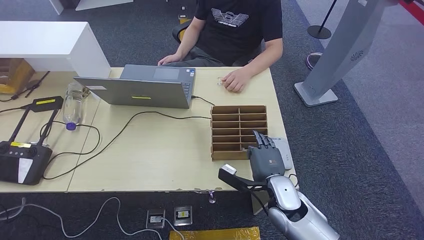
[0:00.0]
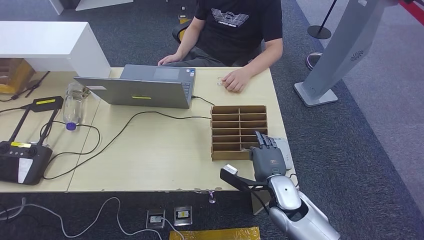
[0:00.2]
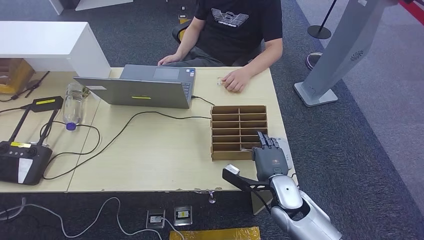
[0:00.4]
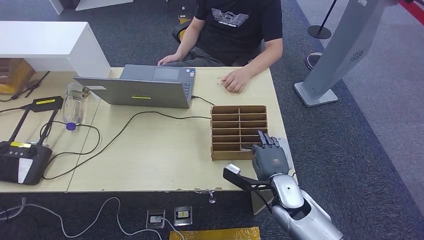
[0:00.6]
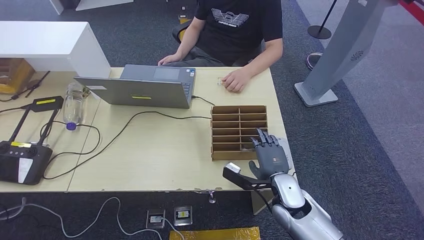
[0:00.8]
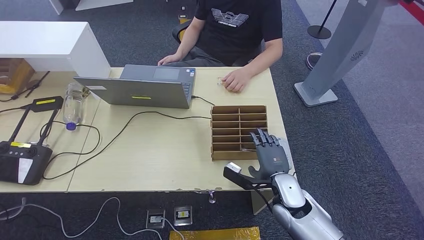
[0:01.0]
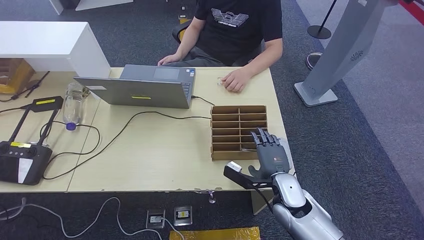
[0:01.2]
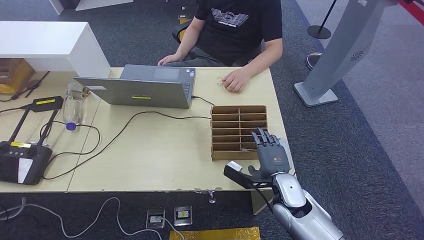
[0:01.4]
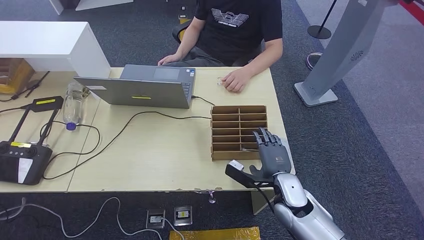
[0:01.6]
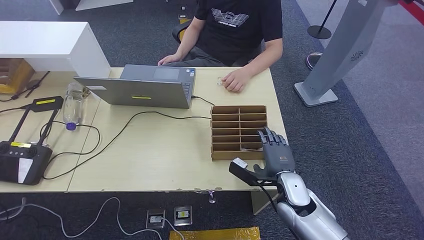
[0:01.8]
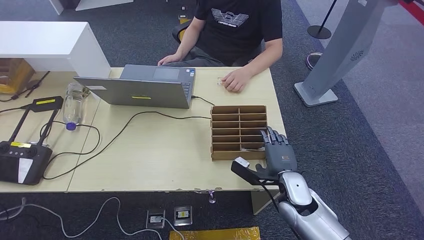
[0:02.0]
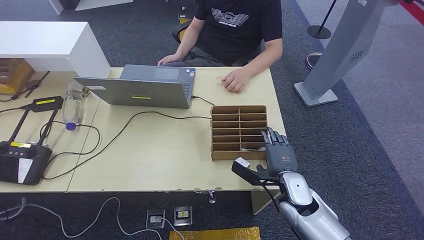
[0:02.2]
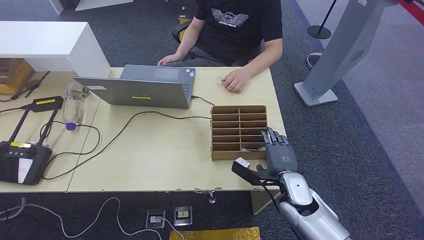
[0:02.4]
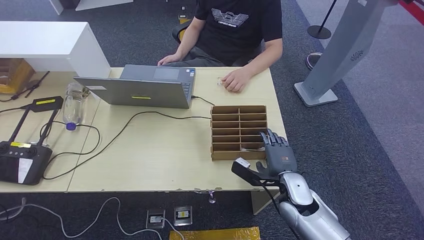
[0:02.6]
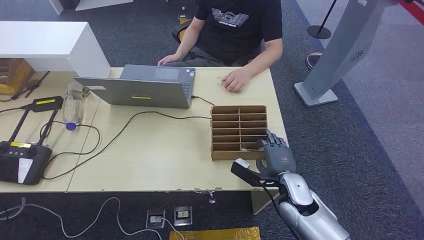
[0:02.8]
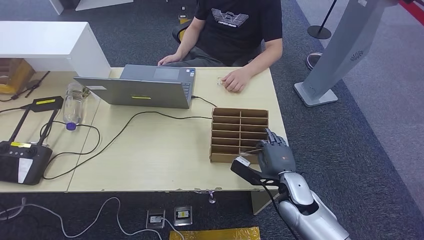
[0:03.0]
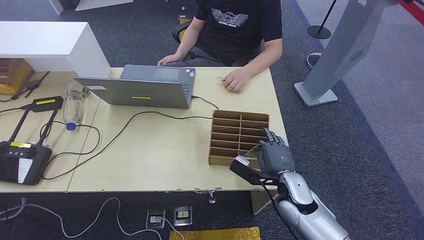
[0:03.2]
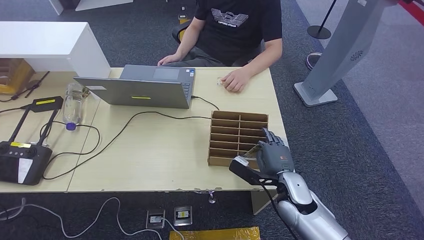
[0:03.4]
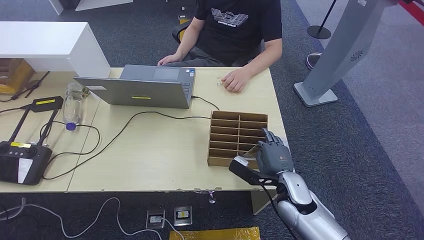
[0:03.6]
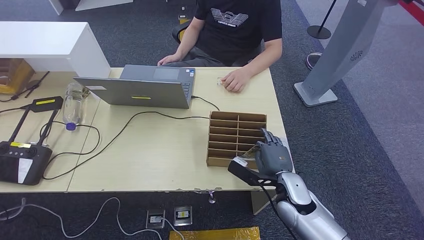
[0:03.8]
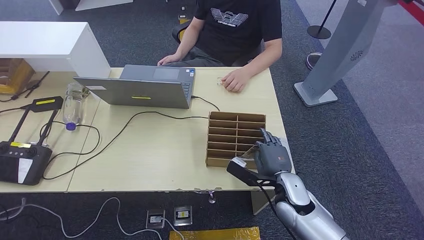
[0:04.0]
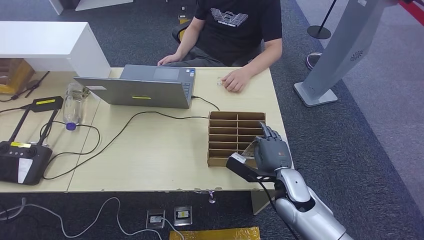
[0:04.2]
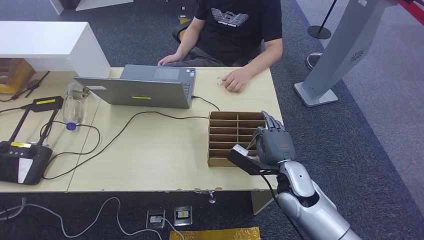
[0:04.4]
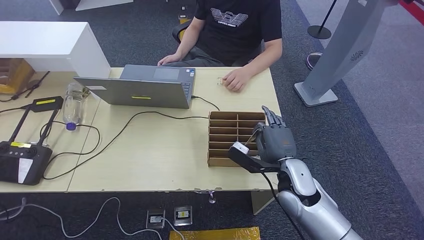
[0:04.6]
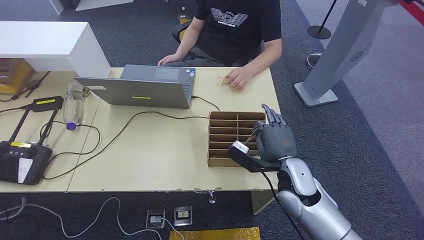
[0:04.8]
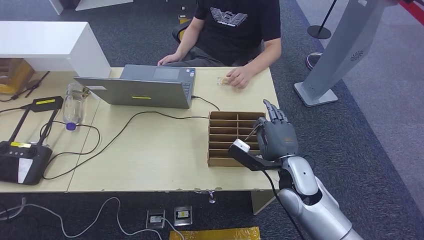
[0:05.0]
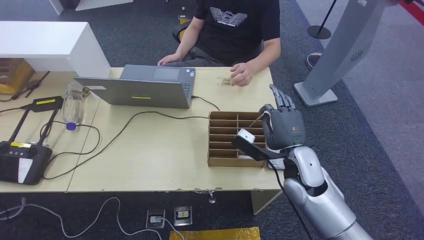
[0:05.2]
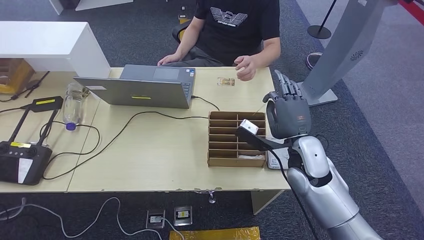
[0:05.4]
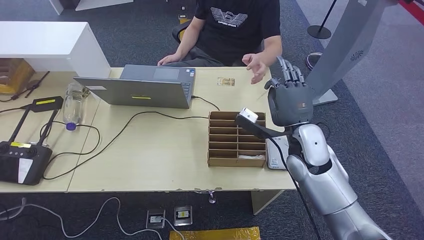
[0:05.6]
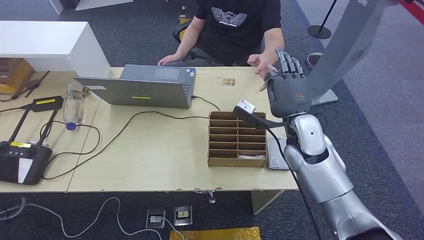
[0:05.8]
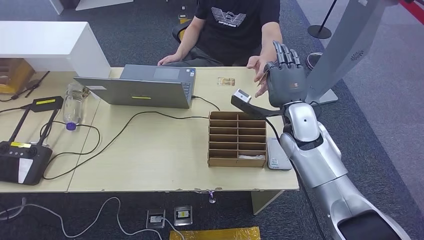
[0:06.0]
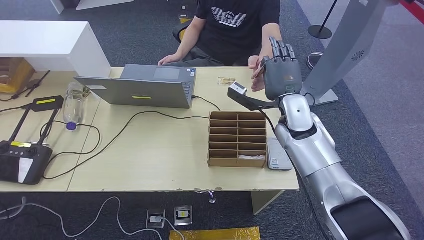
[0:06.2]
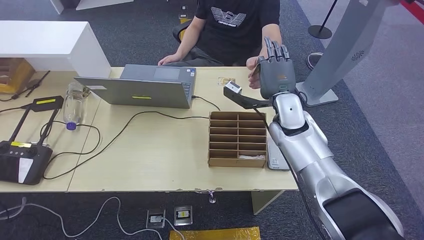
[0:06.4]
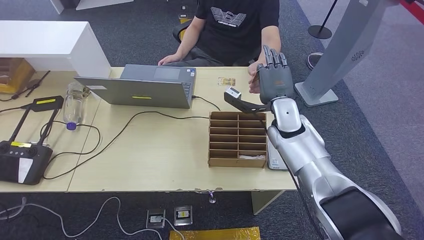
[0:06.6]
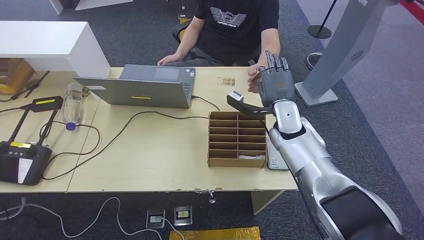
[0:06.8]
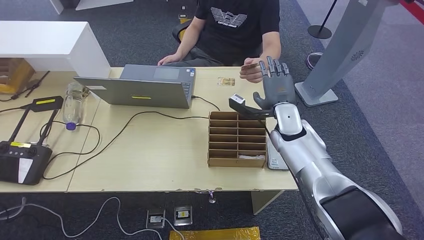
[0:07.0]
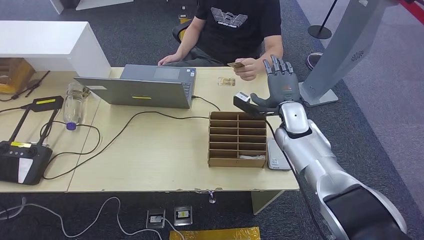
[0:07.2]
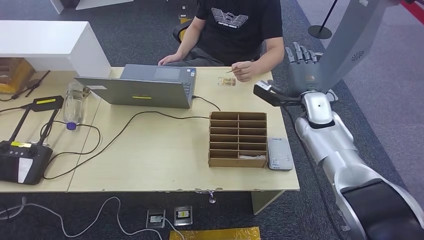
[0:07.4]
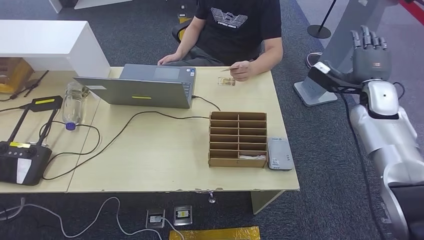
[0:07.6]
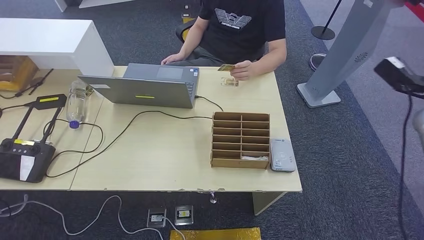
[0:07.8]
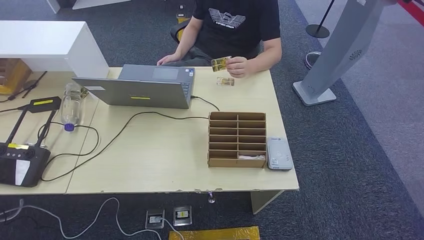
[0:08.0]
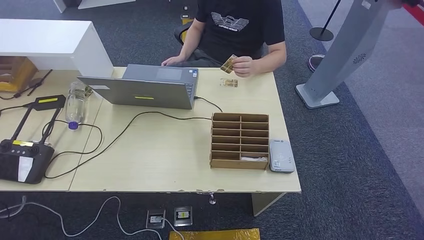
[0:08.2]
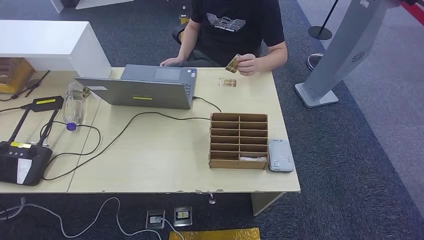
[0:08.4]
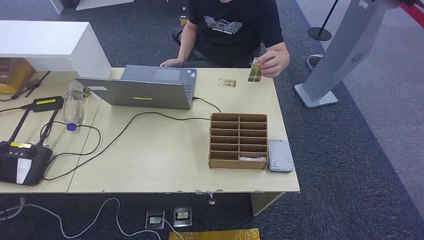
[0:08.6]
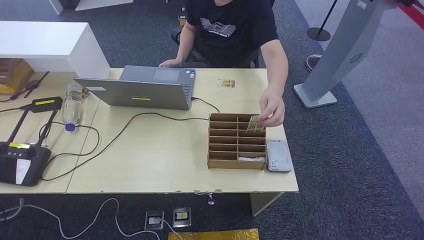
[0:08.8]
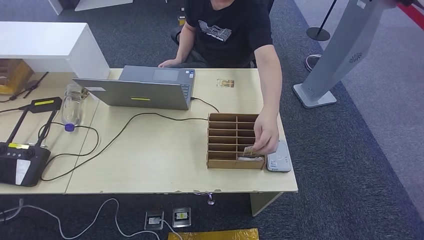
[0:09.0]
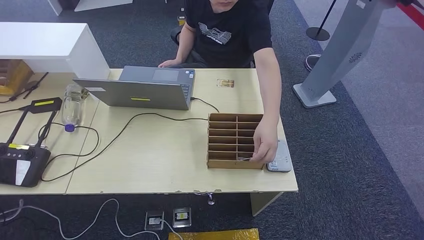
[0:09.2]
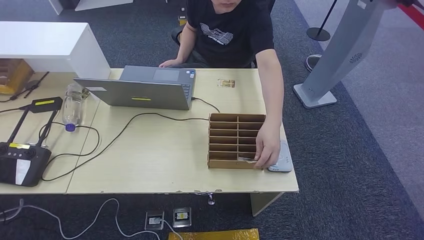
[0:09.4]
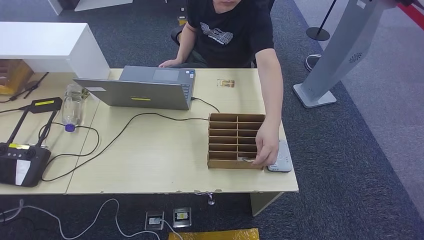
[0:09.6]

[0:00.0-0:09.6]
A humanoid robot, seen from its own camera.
Step, 0:00.0 to 0:05.2: Pick up the room key from the key card box.
Step, 0:05.4 to 0:09.6: Hand the room key to the person.
0:00.0 to 0:03.2: The hands stay close to where they were, moving slightly.
0:03.2 to 0:04.8: The right hand moves upward, some 5 cm.
0:04.8 to 0:06.4: The right hand travels forward and upward by approximately 15 cm.
0:06.4 to 0:08.0: The right hand travels to the right by approximately 40 cm.
0:08.0 to 0:09.6: The right hand goes some 50 cm downward, backward and to the left.
